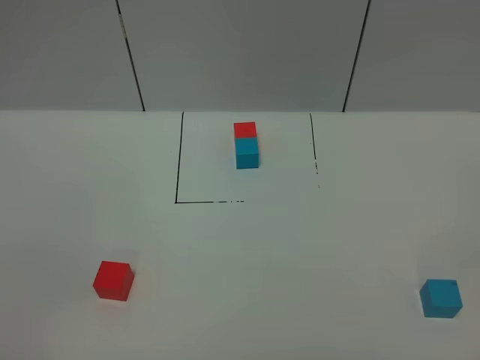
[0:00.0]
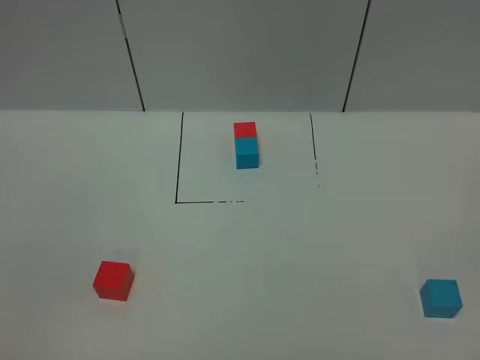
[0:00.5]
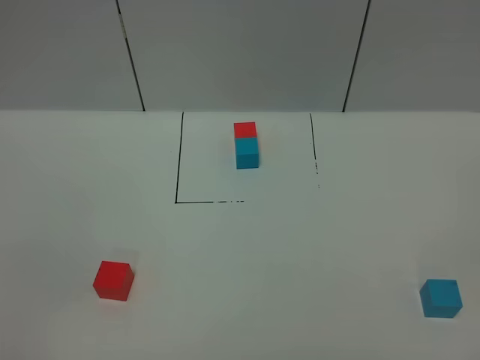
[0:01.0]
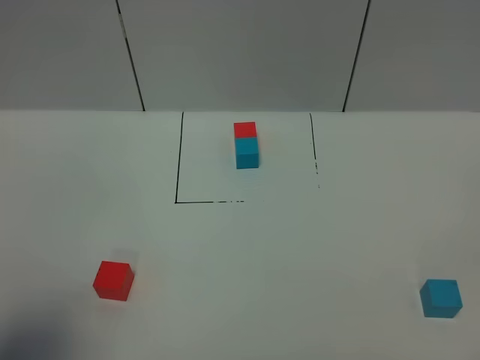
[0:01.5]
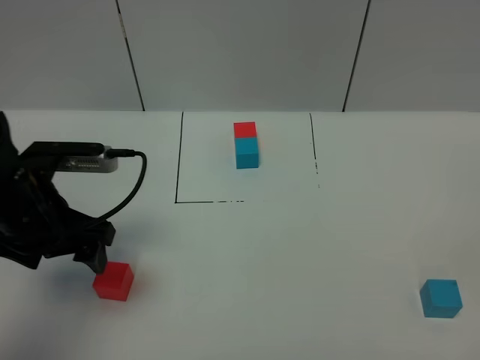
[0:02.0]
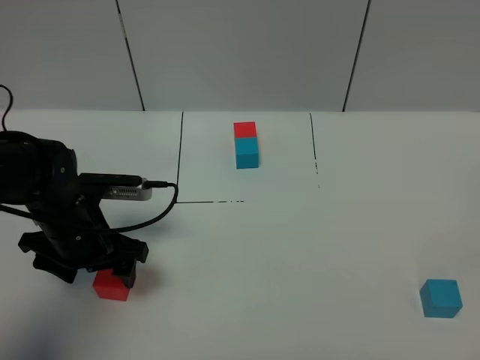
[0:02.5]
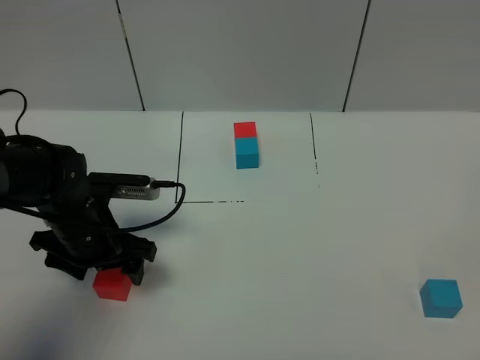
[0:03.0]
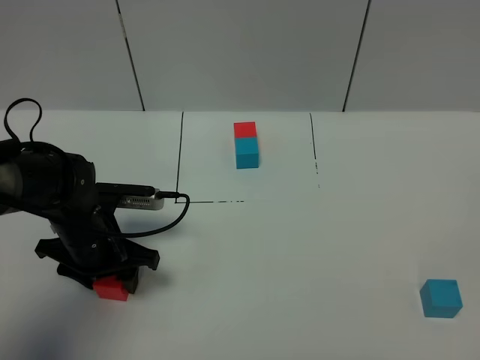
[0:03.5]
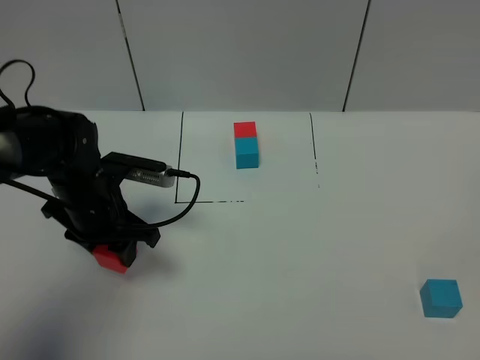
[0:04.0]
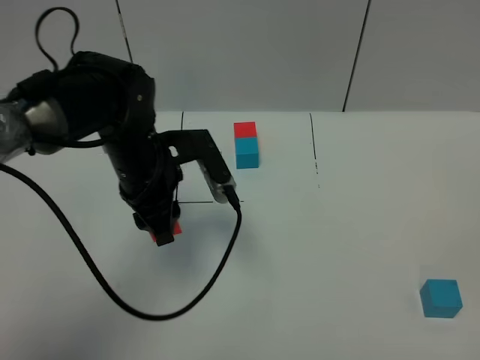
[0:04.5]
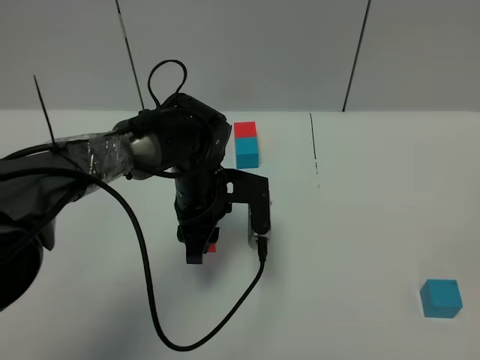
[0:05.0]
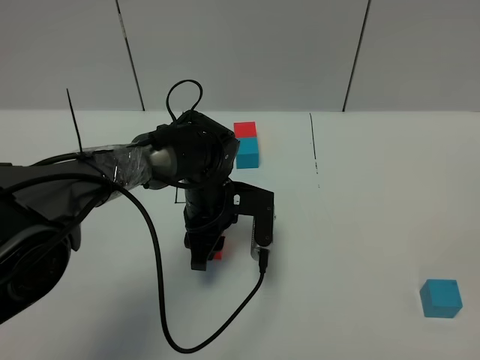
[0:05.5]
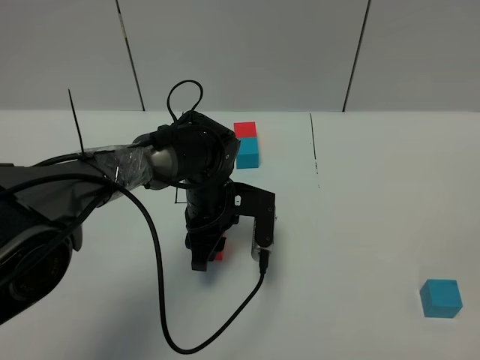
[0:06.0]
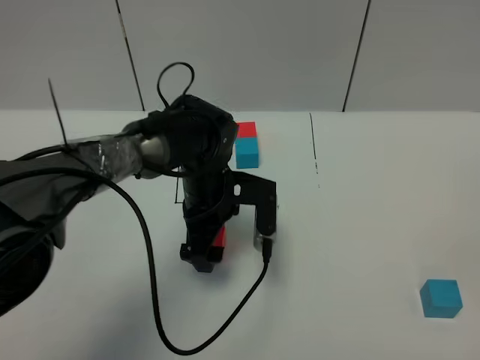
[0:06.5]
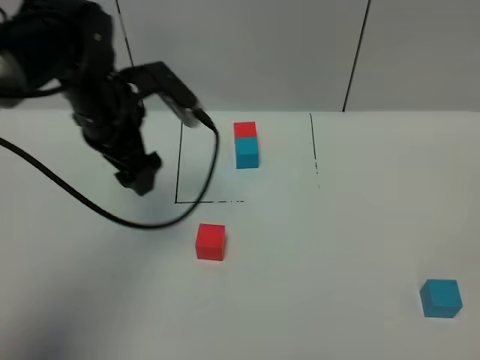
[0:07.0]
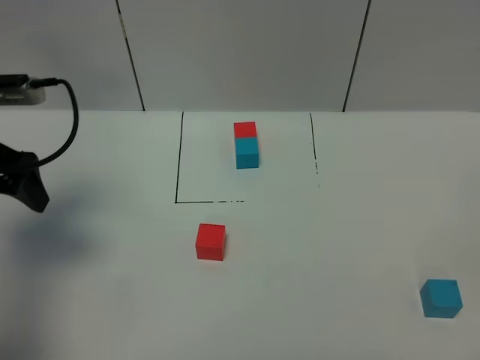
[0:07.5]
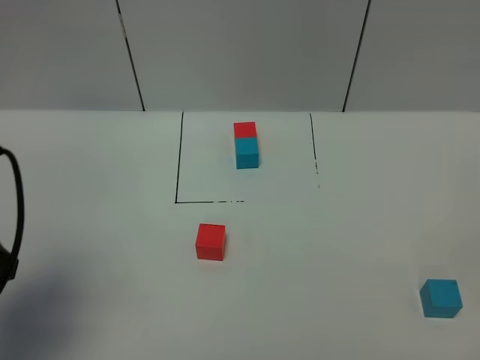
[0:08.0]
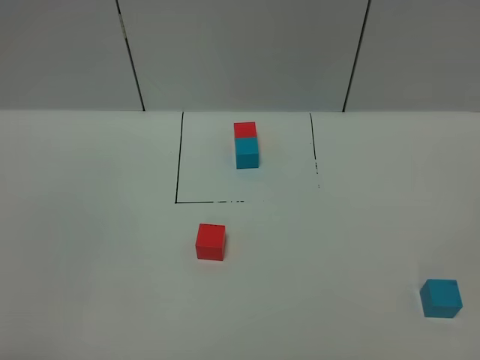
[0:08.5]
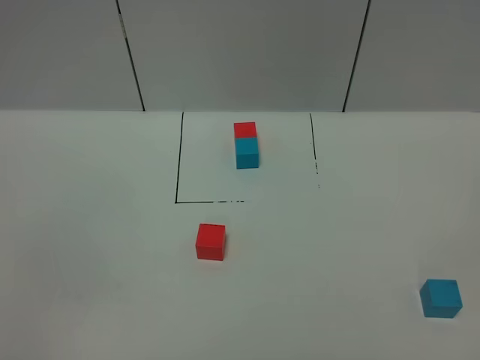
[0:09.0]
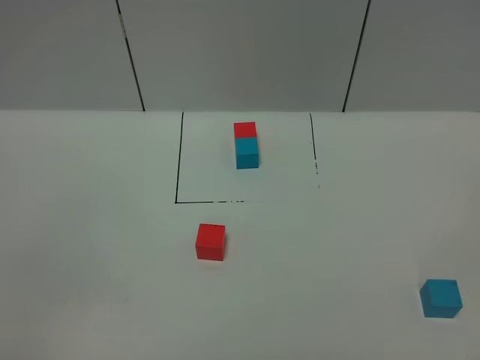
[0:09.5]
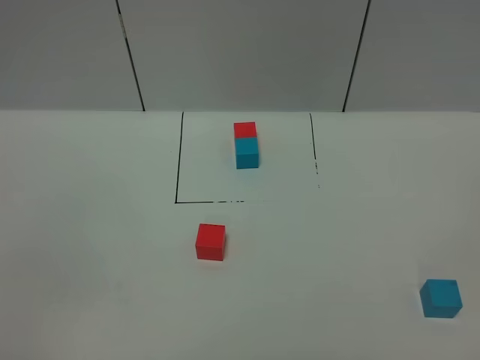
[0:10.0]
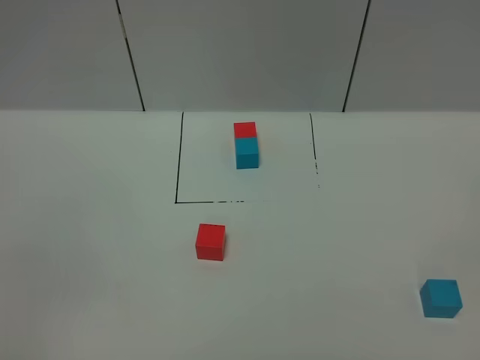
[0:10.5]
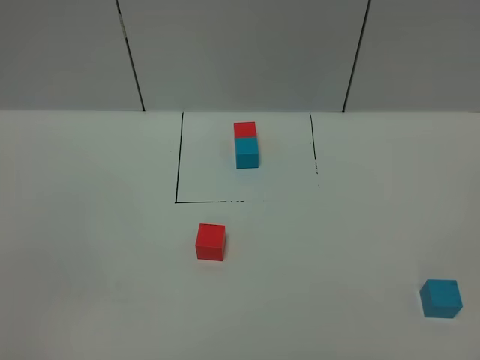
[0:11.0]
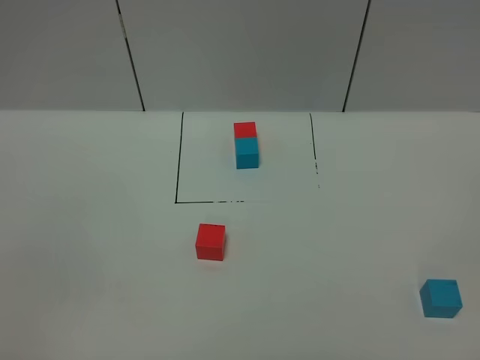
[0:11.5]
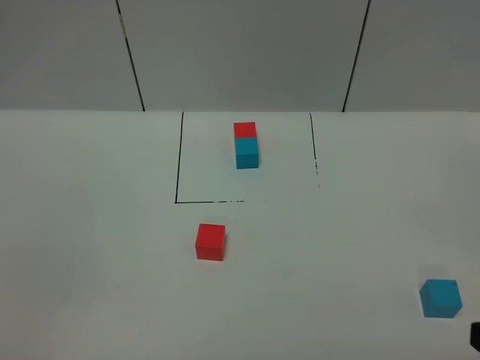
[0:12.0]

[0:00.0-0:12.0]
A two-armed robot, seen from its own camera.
Task of the whole recording: According to the building block template in front, assemble the scattered blocks together.
Step, 2.0 to 6.0 s: Put the red cube in the center of the table.
0.0 to 2.0 s: The left gripper travels forward by approximately 30 cm.
2.0 to 4.0 s: The left gripper is displaced forward and downward by approximately 10 cm, and closes its fingers.
4.0 to 6.0 s: The left gripper shifts roughly 15 cm to the right.
6.0 to 8.0 s: The left gripper goes about 35 cm to the left, backward and upward, and opens its fingers.
8.0 to 10.0 s: The left gripper travels backward by roughly 20 cm.

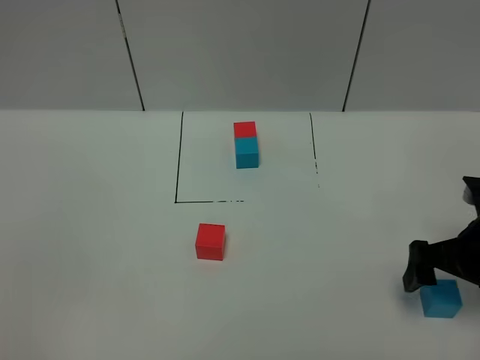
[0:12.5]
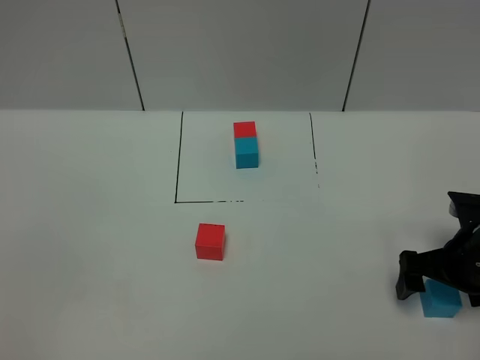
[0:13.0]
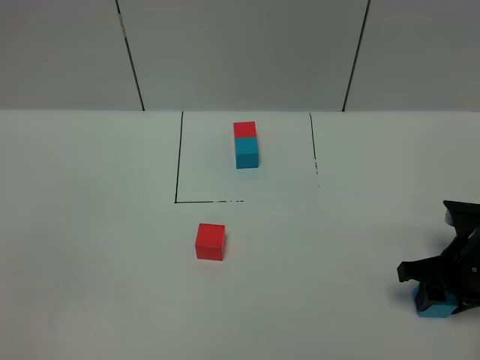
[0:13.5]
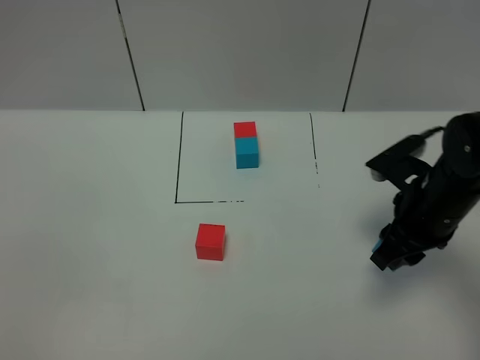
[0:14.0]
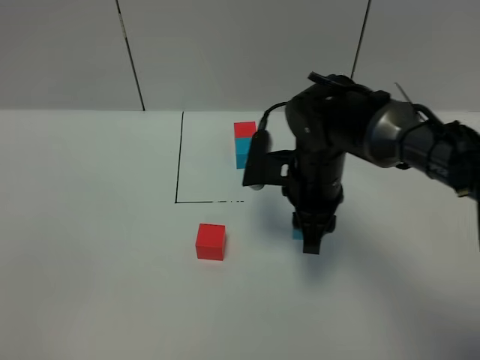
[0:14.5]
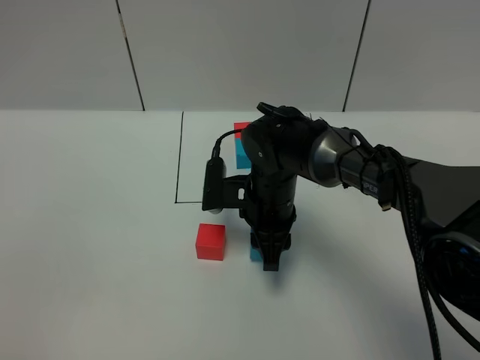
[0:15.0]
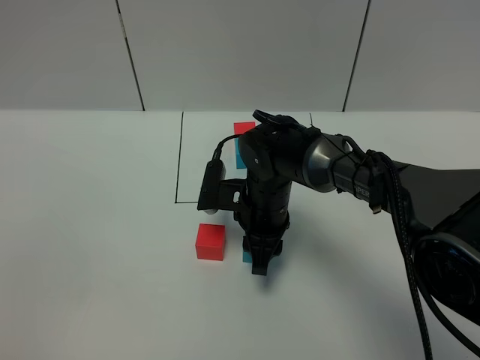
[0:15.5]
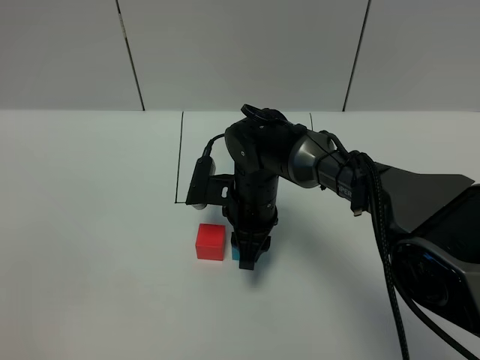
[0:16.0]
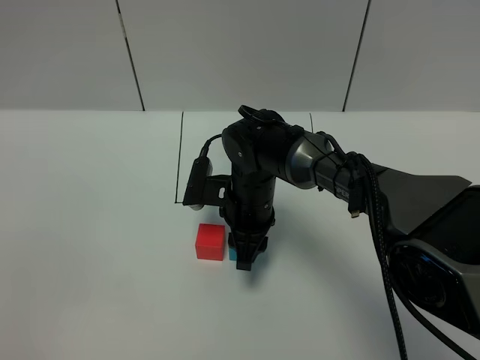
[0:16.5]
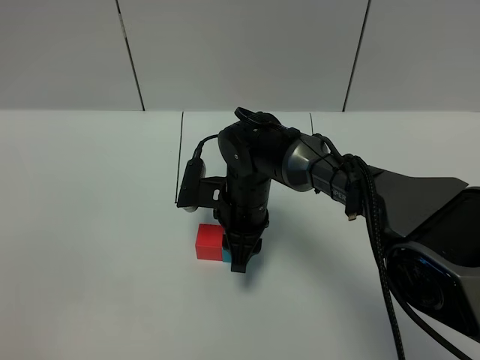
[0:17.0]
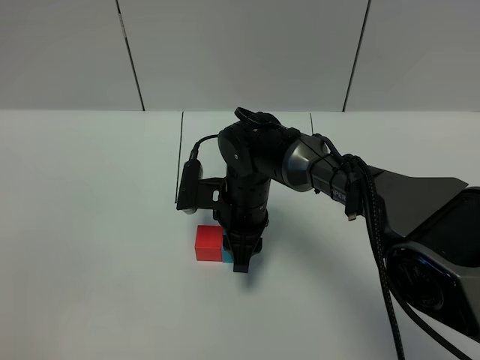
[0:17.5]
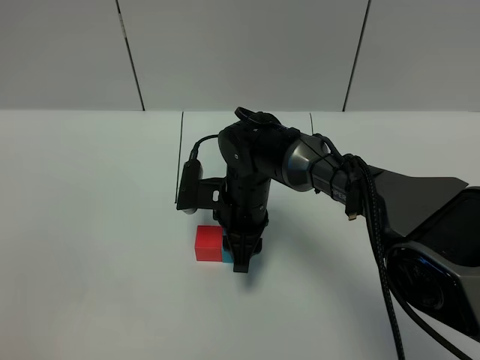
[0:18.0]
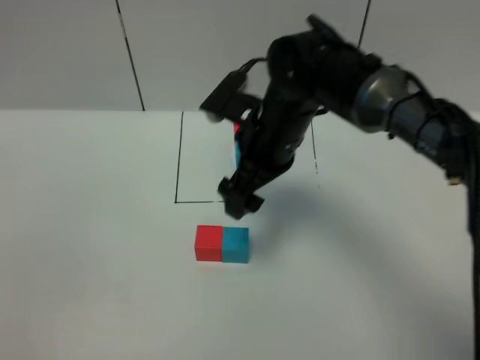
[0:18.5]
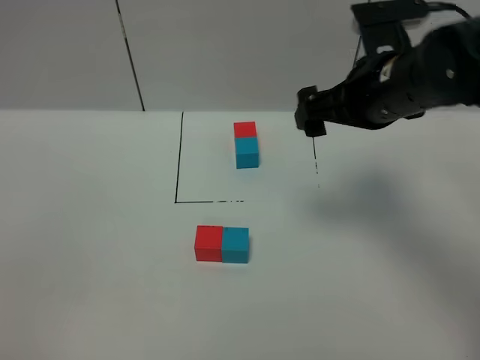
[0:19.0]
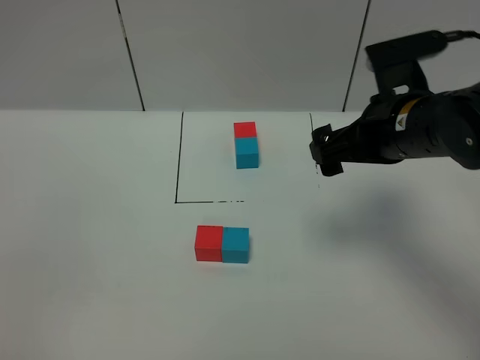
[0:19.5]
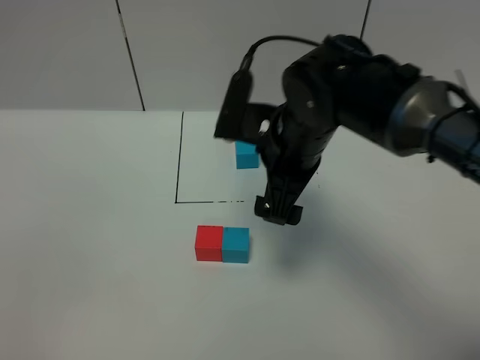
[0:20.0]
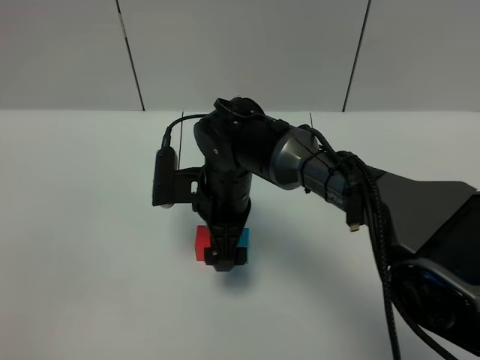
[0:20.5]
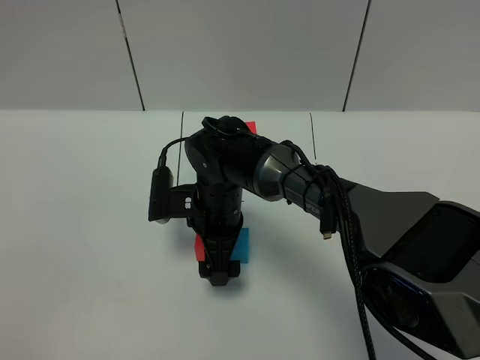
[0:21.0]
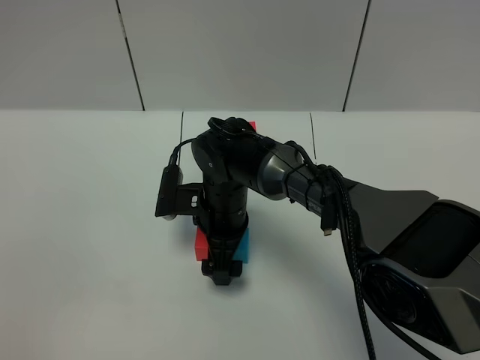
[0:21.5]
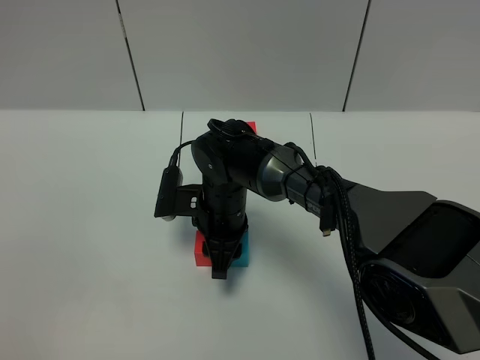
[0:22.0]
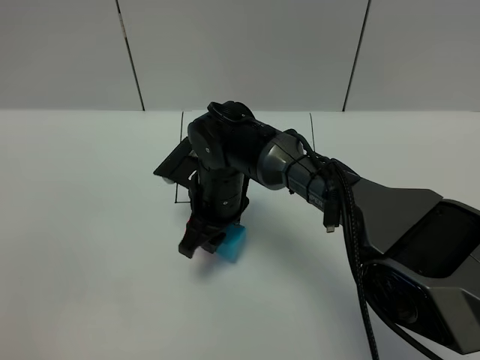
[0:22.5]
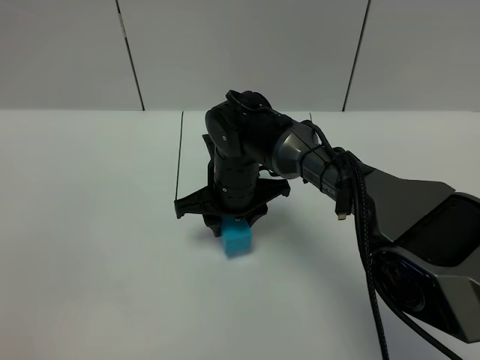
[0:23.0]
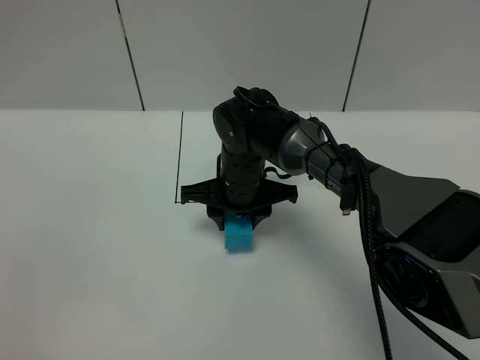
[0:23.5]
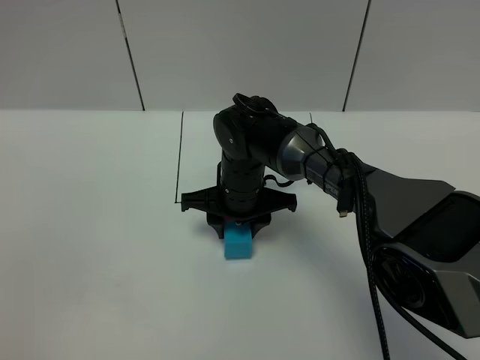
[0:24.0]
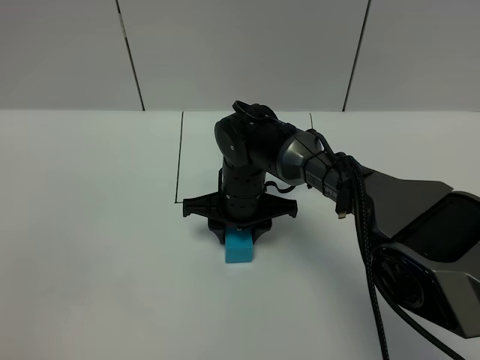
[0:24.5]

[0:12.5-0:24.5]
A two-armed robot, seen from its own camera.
Task of the whole recording: According to the building block template in front, assemble the scattered blocks together.
Step, 12.5 to 18.0 s: Put the blue cube on the right of the red cube.
12.5 to 14.5 s: The right gripper is displaced to the left and forward by approximately 25 cm, and closes.
14.5 to 16.5 s: The right gripper shifts about 10 cm to the left and downward.
16.5 to 18.5 s: The right gripper is displaced upward by roughly 10 cm, and opens.
18.5 to 20.5 s: The right gripper goes about 10 cm downward and to the left.
20.5 to 22.5 s: The right gripper closes up.

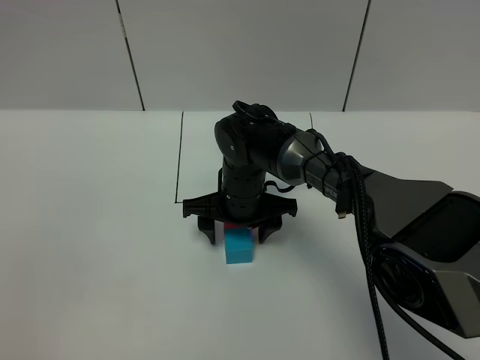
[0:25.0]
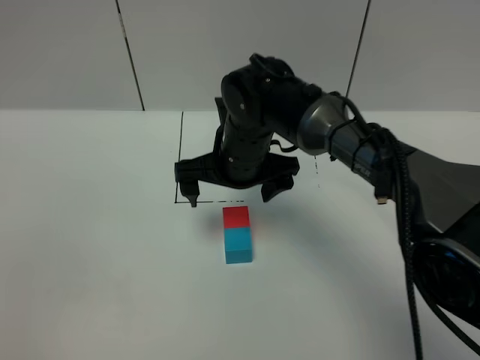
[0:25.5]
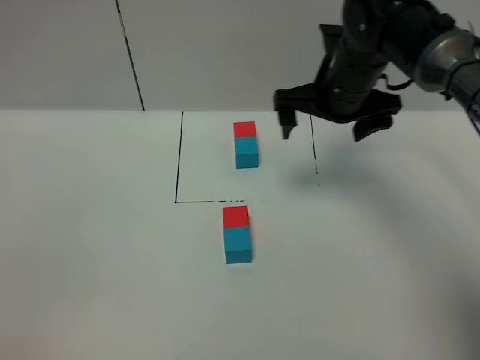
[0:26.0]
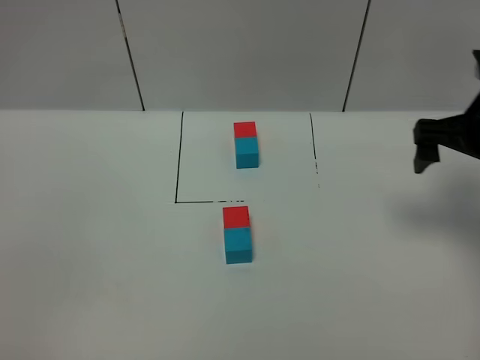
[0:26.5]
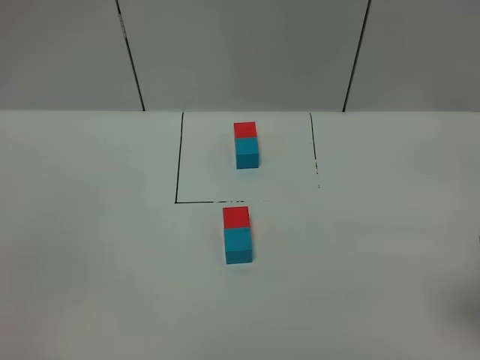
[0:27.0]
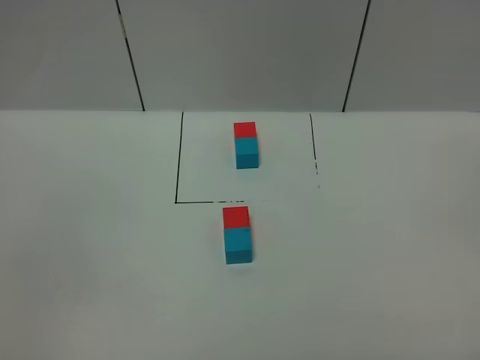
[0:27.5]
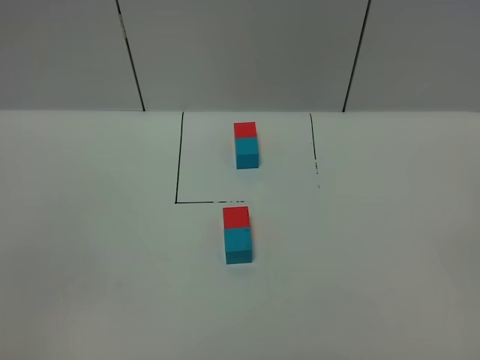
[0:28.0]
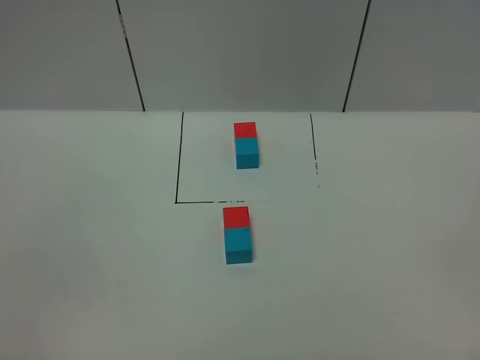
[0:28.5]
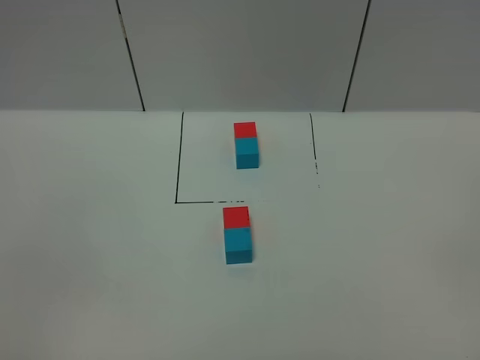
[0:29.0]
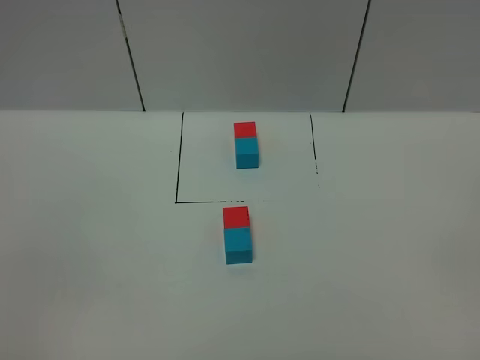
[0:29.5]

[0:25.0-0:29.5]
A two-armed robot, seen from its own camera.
Task of the whole recording: According to the building block template in front, assemble the scattered blocks together.
25.0 to 27.0 s: The right gripper is displaced to the right, backward and upward by about 40 cm, and opens.
